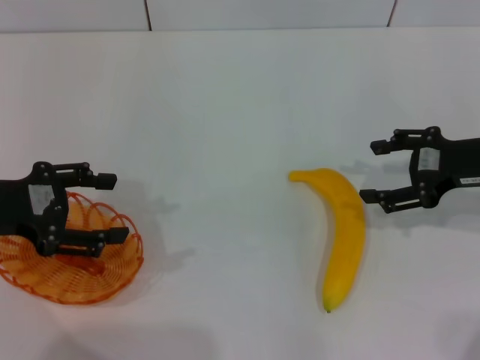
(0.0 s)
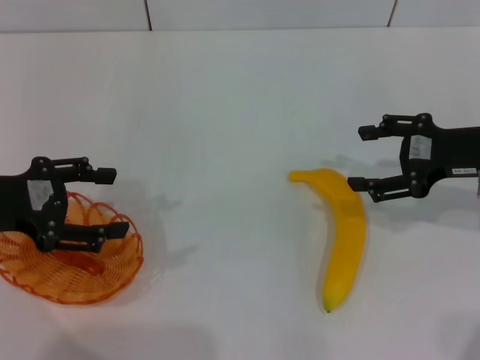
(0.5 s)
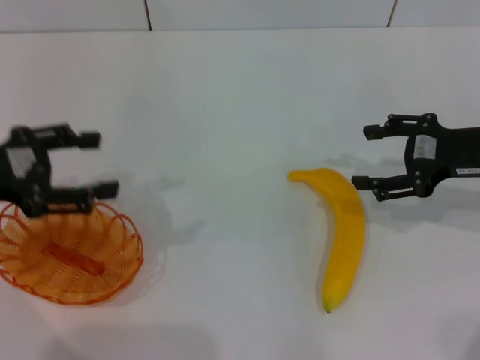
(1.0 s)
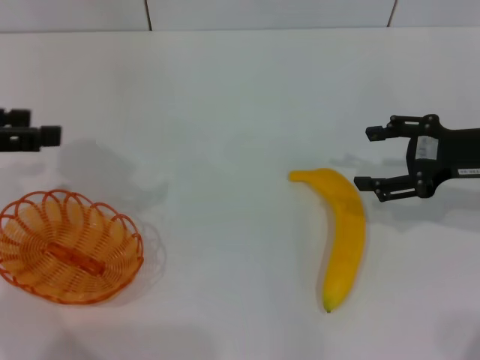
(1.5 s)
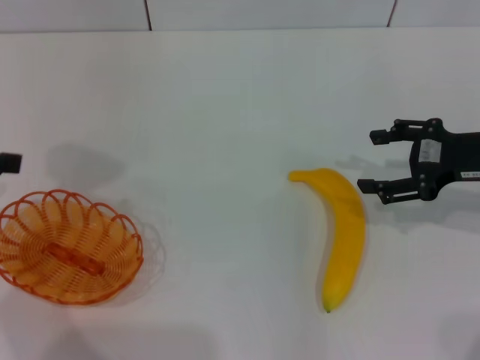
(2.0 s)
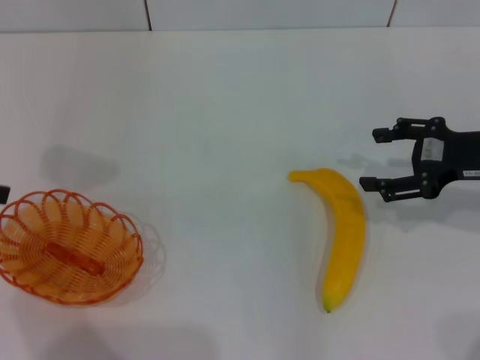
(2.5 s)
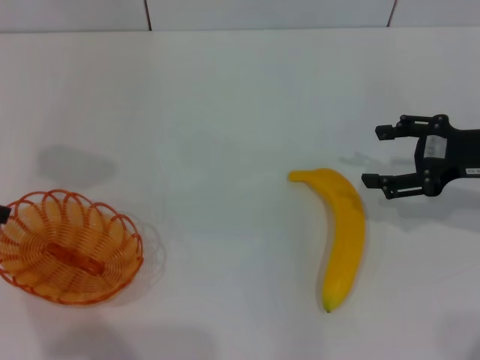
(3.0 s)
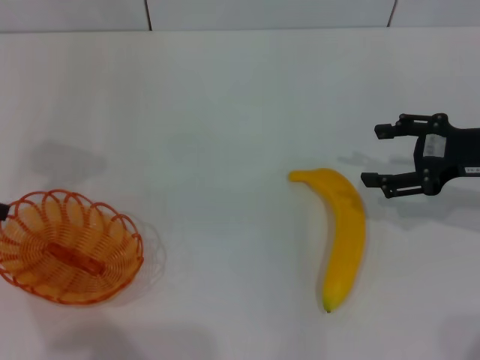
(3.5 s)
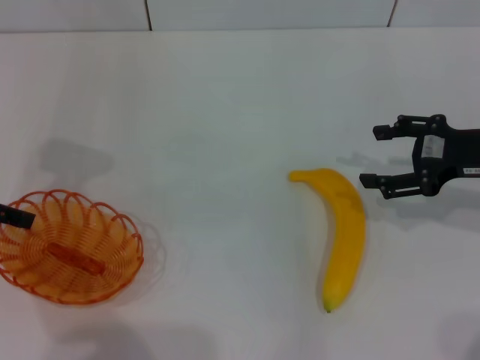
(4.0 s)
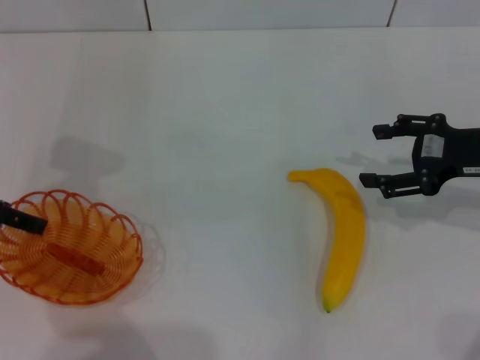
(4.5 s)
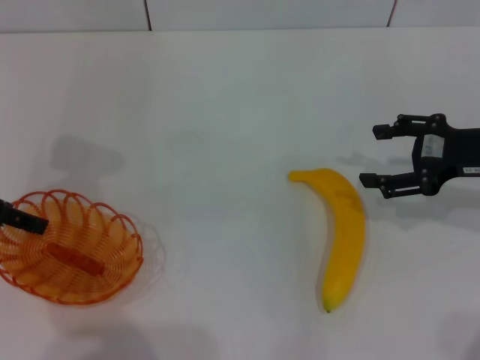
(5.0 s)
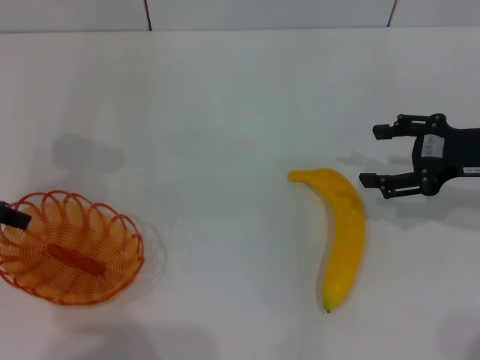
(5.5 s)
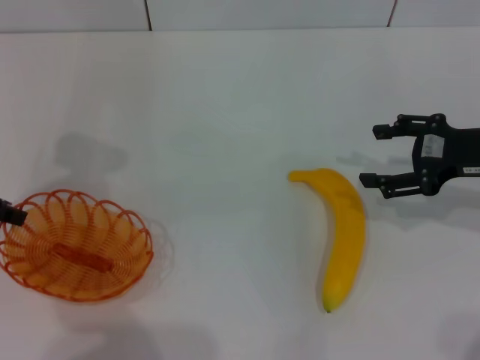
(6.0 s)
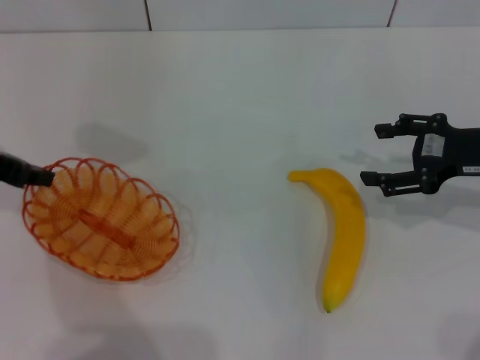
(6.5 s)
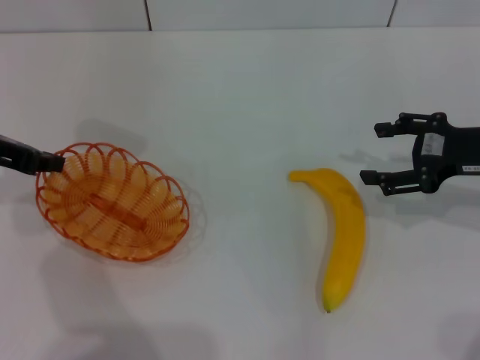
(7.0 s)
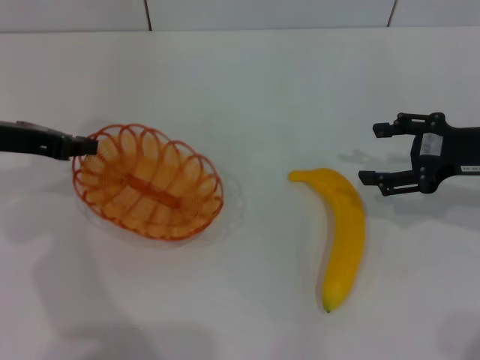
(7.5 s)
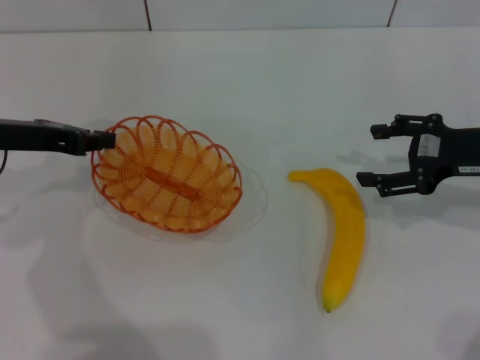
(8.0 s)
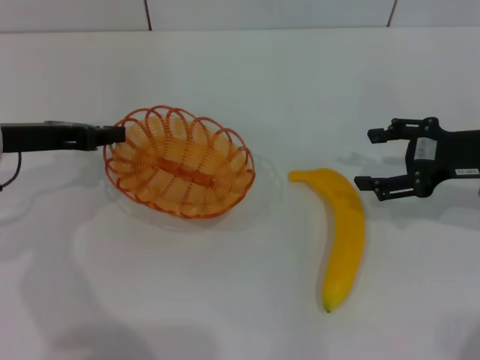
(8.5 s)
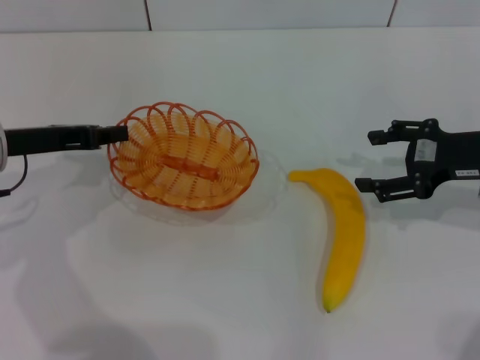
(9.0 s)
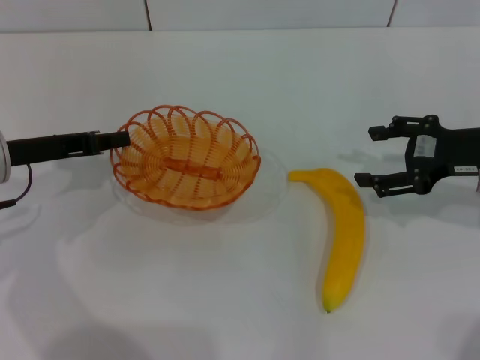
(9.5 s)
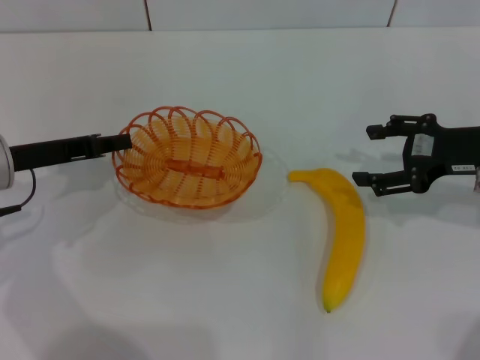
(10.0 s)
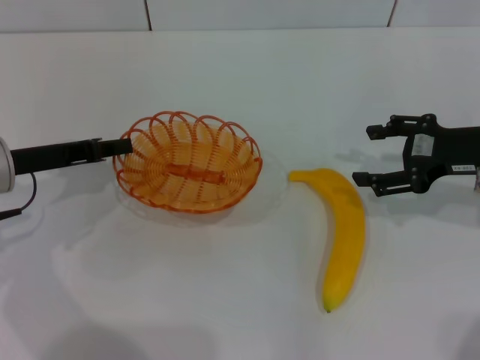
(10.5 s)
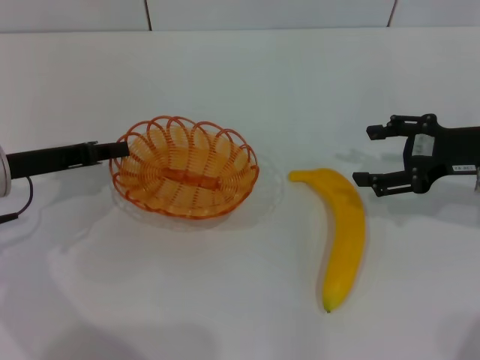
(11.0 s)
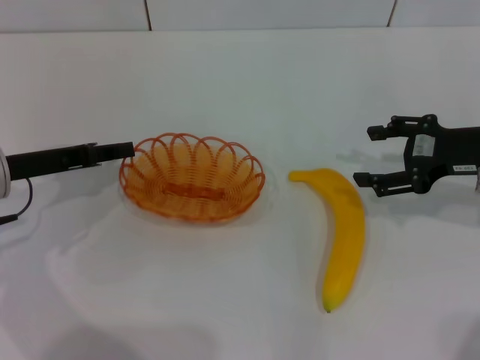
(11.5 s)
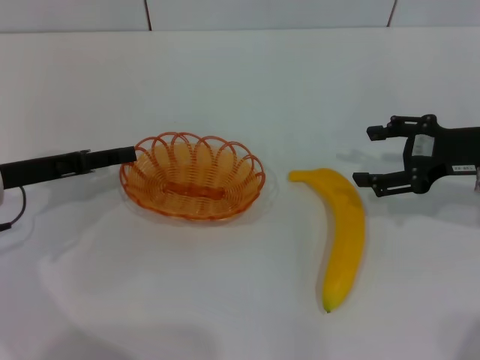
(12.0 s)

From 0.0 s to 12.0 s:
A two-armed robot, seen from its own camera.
Step, from 0.0 s to 6.5 s: Pick up the basket with the left gripper.
From 0.0 s to 2.0 s: The left gripper is displaced upward by about 10 cm.
From 2.0 s to 4.0 s: The left gripper is displaced downward by approximately 5 cm.
From 4.0 s to 6.0 s: The left gripper closes up.
From 8.0 s to 10.0 s: There are only small adjustments of the grippers.
From 10.0 s to 12.0 s: The left gripper opens up.

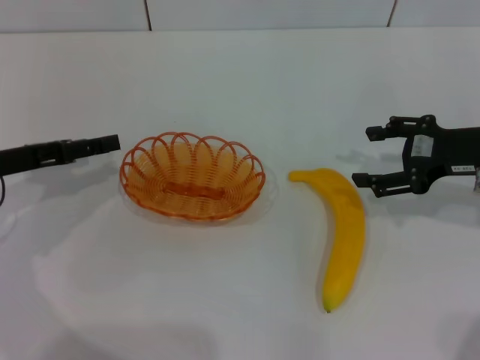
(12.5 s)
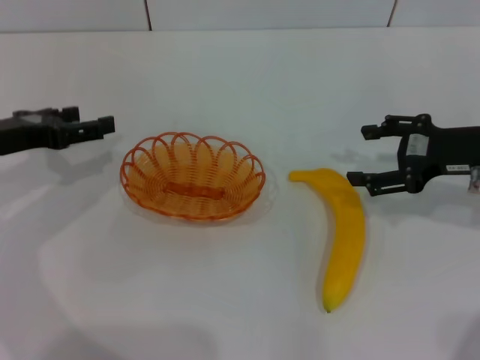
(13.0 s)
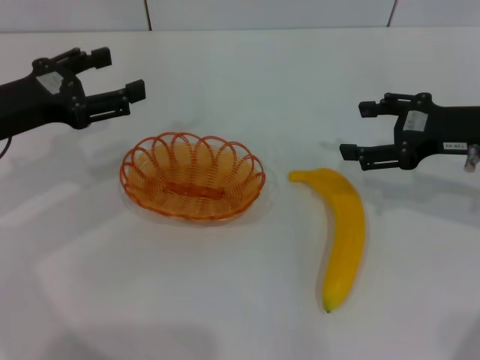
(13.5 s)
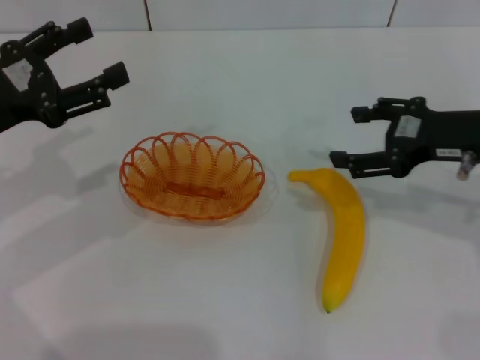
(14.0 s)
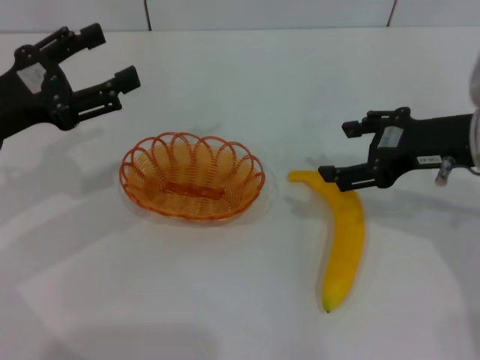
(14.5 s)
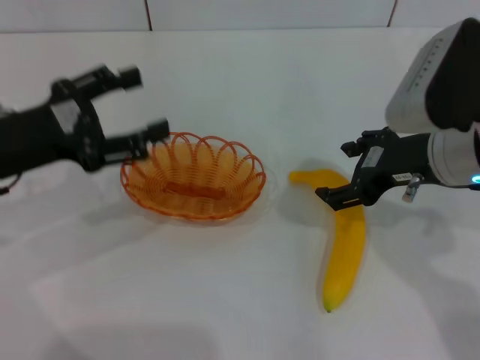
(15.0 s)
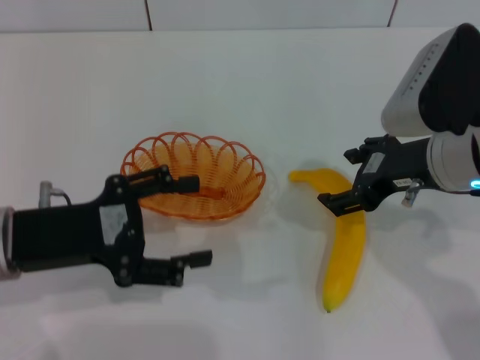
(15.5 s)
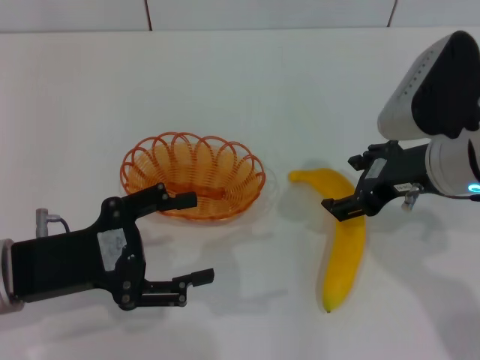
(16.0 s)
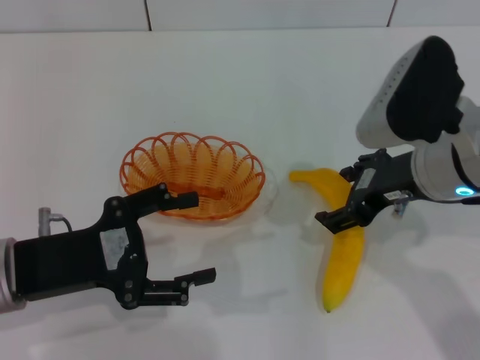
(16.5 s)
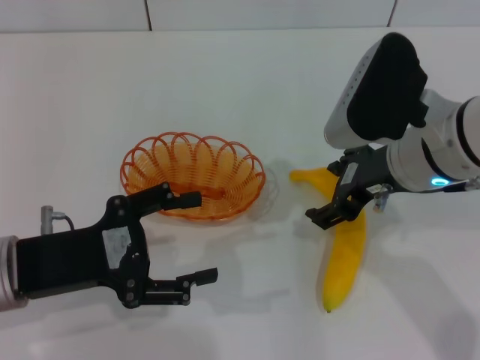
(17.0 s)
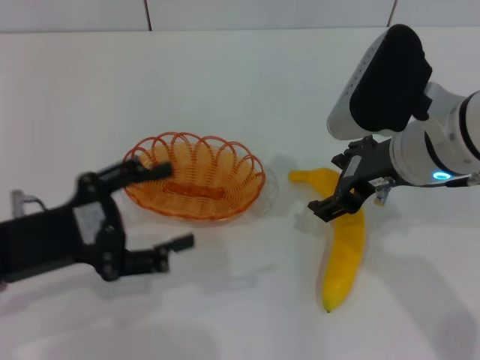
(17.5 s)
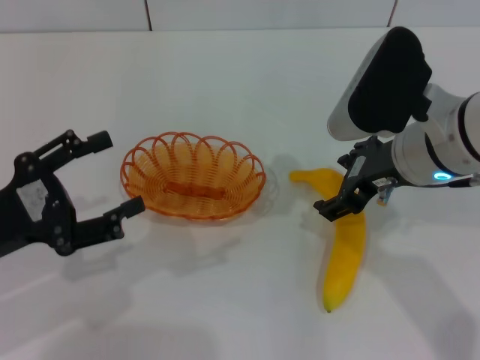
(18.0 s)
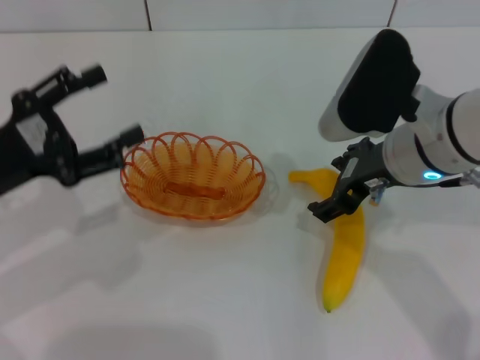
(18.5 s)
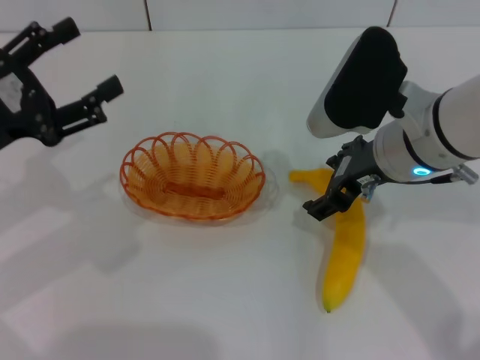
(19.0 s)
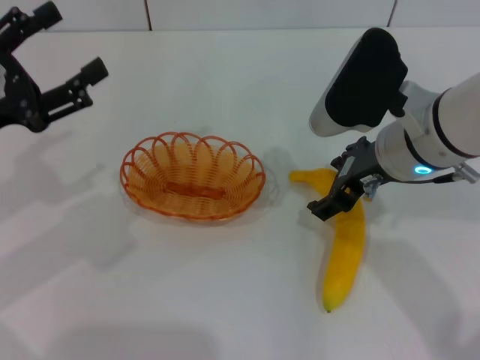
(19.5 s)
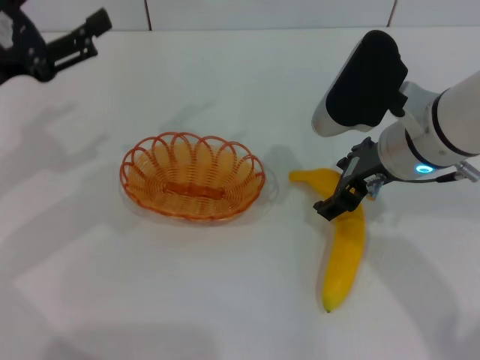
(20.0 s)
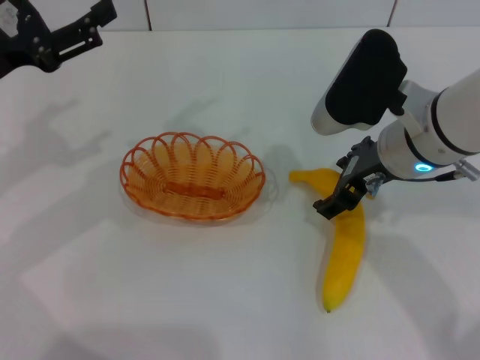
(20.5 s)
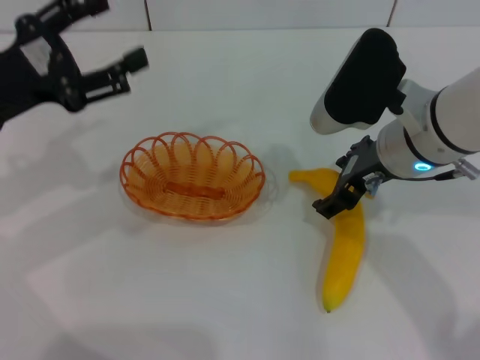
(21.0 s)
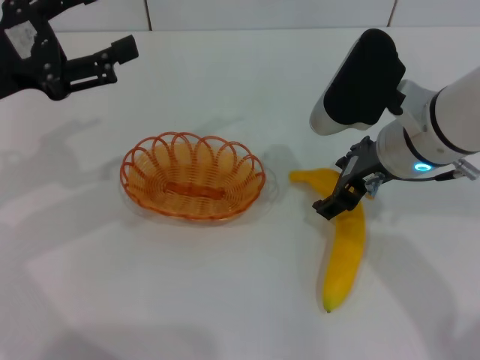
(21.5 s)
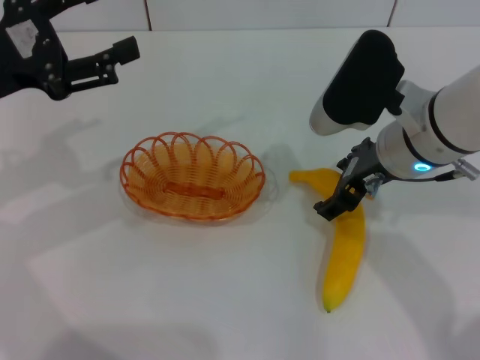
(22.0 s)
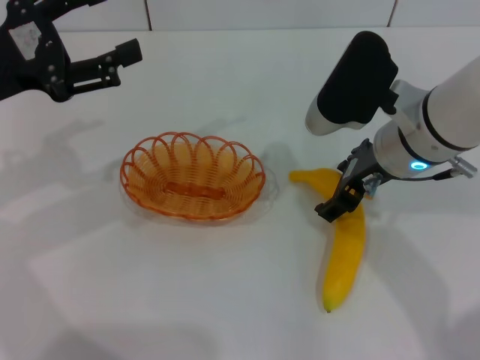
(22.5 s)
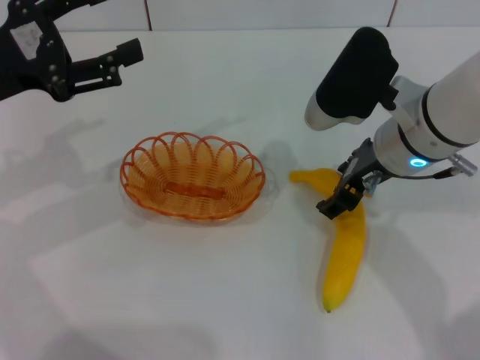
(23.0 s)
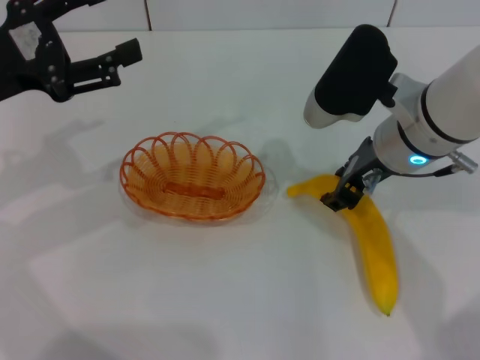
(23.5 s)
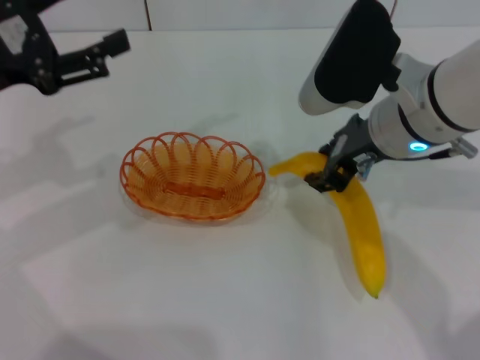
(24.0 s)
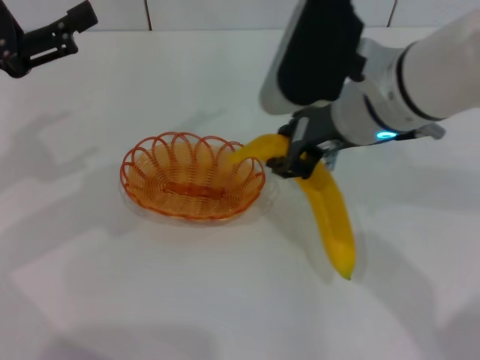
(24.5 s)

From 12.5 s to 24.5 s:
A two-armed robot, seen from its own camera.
Step, from 12.5 s to 24.0 s: Pick up the banana with the right gripper.
From 12.5 s to 14.5 s: The right gripper goes some 5 cm to the left. The left gripper shifts by some 5 cm.
From 14.5 s to 16.5 s: The left gripper travels backward by approximately 10 cm. Meanwhile the right gripper is displaced to the left by approximately 5 cm.
From 16.5 s to 18.5 s: The left gripper shifts by about 5 cm.
From 18.5 s to 20.5 s: The left gripper heads forward, covering some 5 cm.
From 20.5 s to 22.5 s: The grippers move only a little.
From 22.5 s to 24.5 s: The right gripper is displaced upward by roughly 5 cm, and closes up.

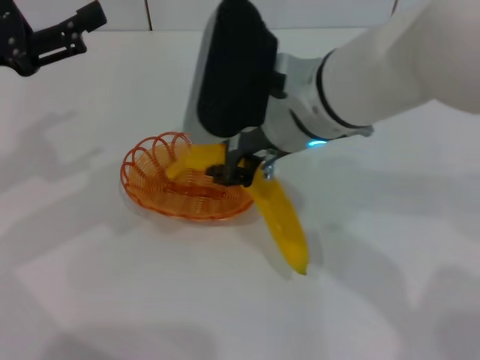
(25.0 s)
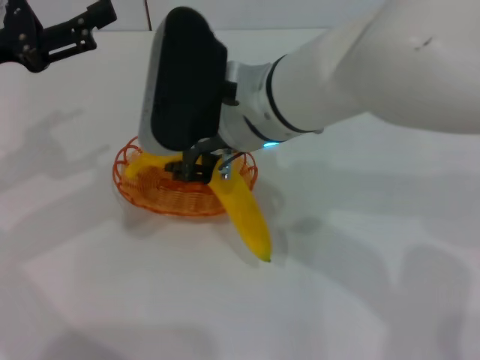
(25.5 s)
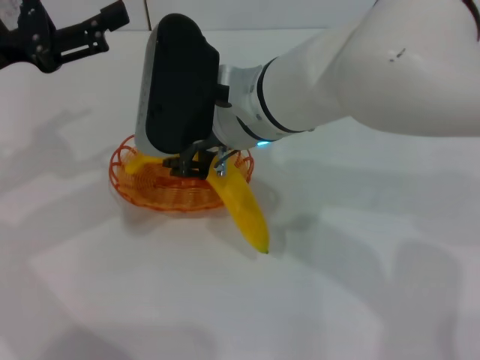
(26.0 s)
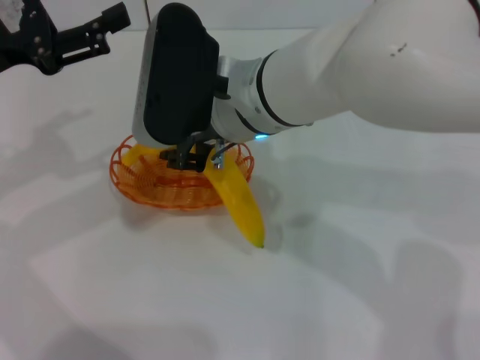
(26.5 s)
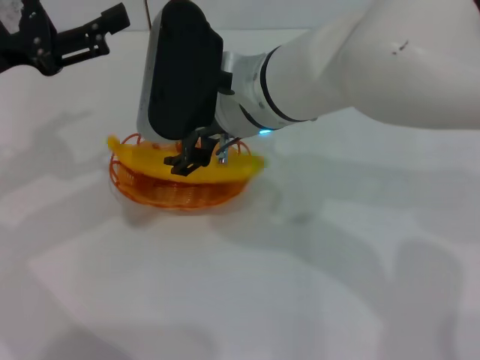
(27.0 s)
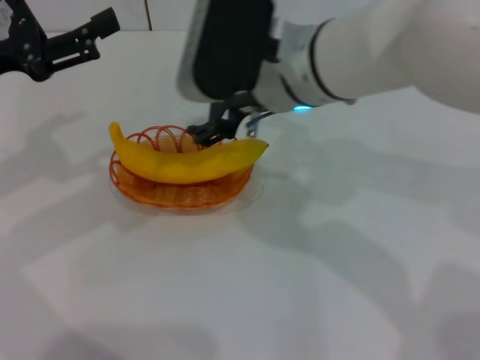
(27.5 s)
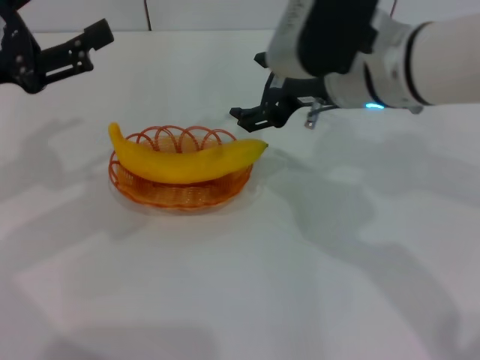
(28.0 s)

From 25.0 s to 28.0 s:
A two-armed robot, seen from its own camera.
Step, from 25.0 s to 27.5 s: Place the banana into the basket with the right gripper.
From 26.5 s to 28.0 s: The right gripper heads to the right, covering roughly 10 cm, and opens.
